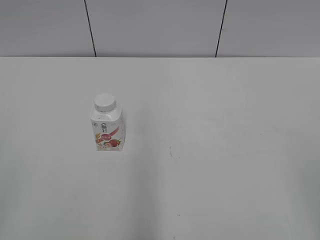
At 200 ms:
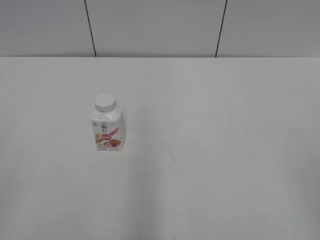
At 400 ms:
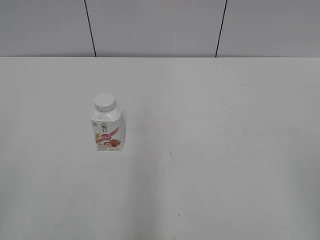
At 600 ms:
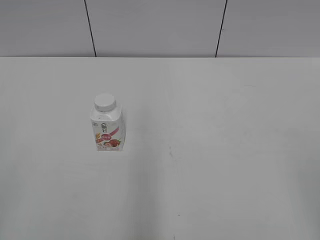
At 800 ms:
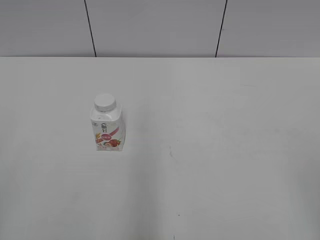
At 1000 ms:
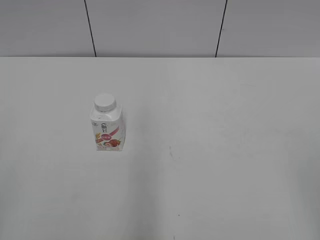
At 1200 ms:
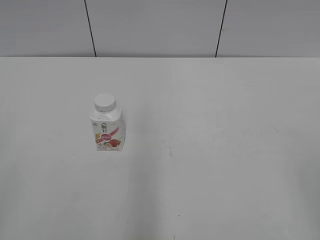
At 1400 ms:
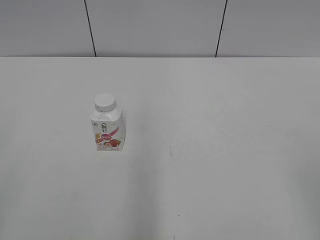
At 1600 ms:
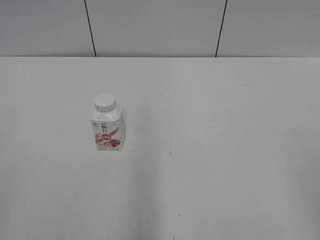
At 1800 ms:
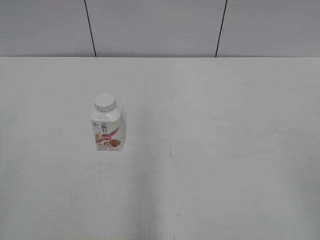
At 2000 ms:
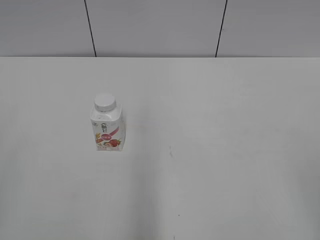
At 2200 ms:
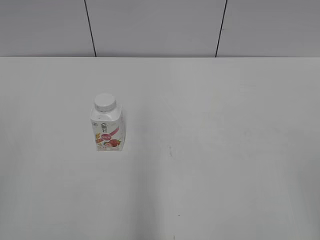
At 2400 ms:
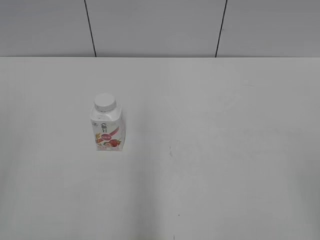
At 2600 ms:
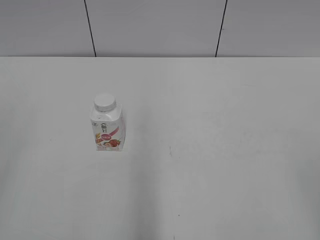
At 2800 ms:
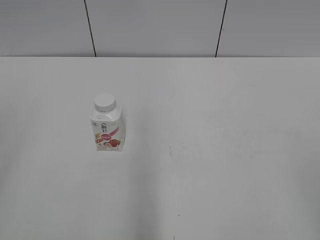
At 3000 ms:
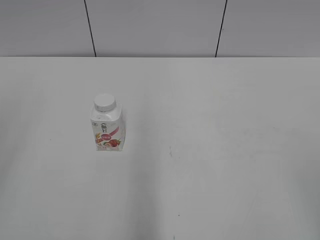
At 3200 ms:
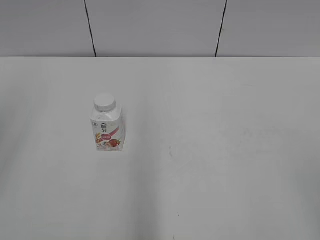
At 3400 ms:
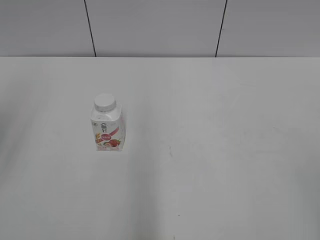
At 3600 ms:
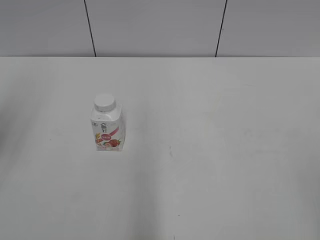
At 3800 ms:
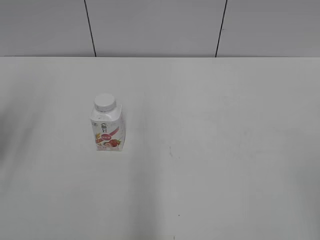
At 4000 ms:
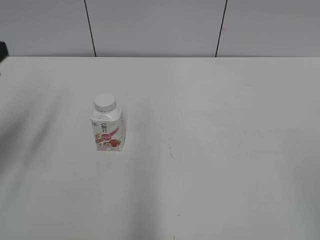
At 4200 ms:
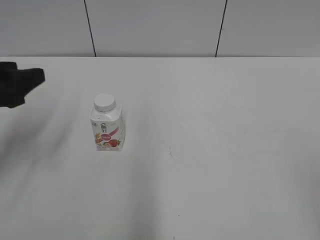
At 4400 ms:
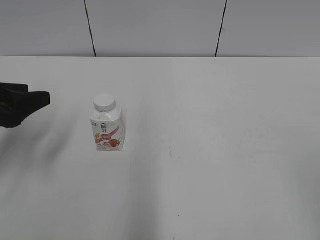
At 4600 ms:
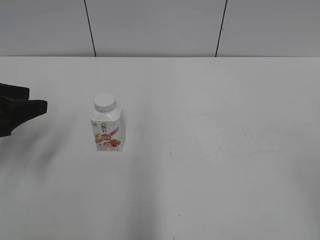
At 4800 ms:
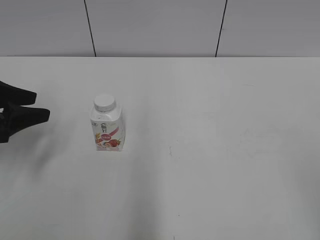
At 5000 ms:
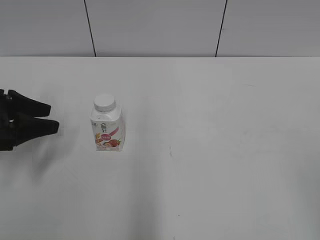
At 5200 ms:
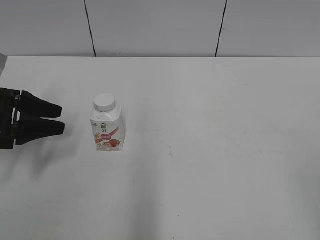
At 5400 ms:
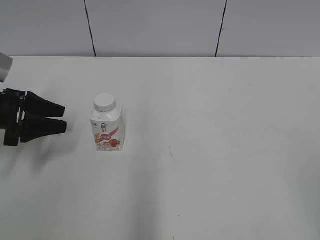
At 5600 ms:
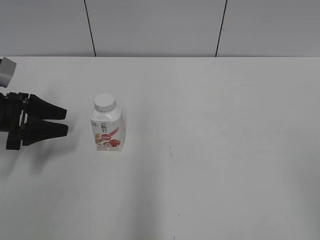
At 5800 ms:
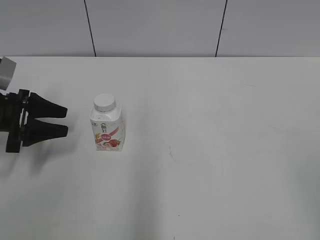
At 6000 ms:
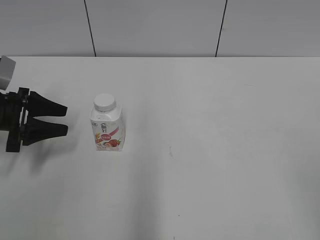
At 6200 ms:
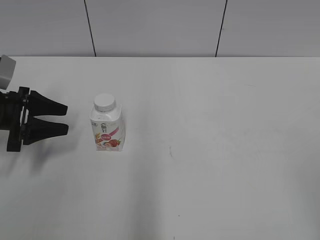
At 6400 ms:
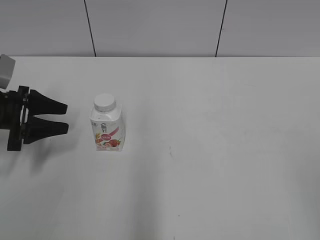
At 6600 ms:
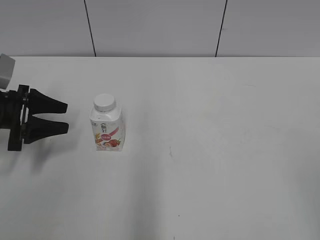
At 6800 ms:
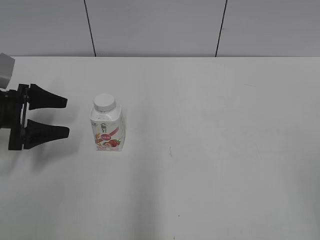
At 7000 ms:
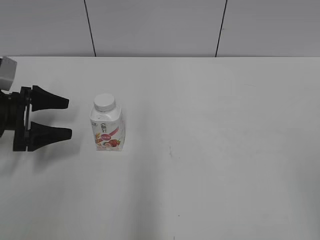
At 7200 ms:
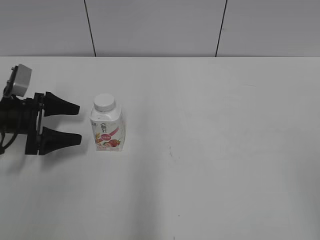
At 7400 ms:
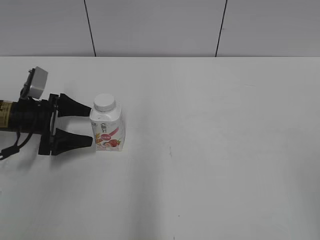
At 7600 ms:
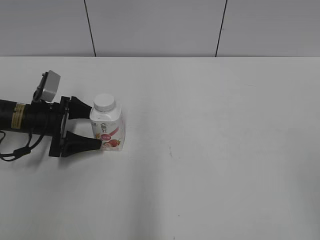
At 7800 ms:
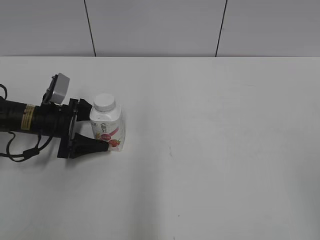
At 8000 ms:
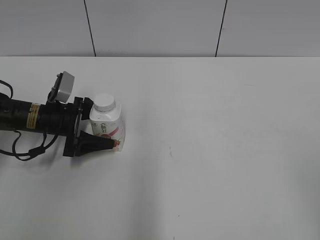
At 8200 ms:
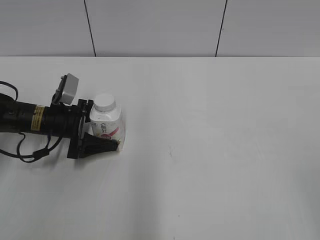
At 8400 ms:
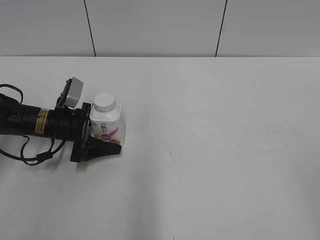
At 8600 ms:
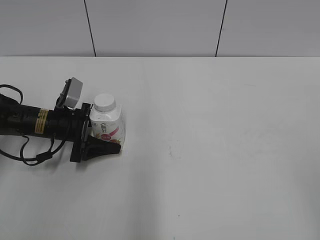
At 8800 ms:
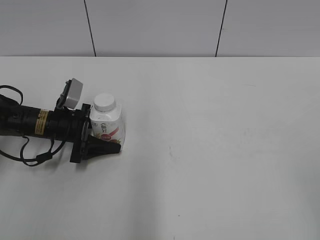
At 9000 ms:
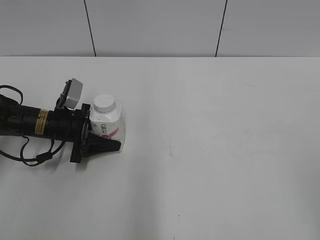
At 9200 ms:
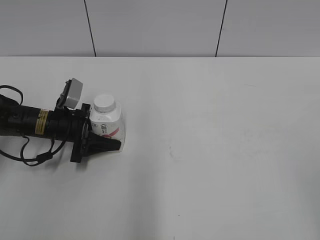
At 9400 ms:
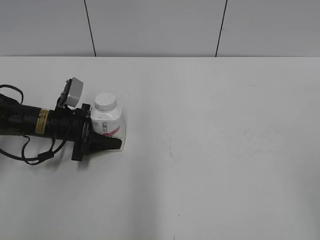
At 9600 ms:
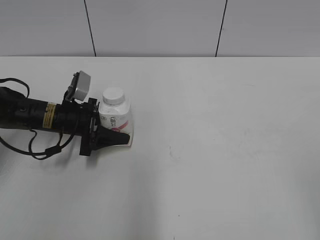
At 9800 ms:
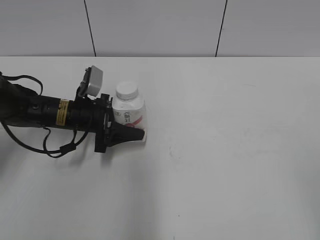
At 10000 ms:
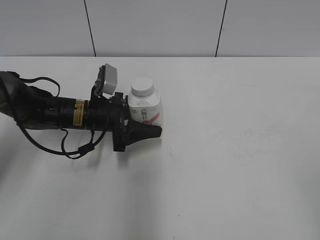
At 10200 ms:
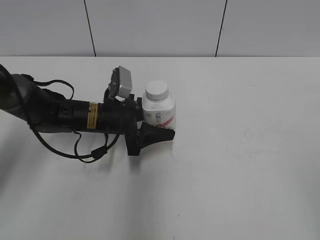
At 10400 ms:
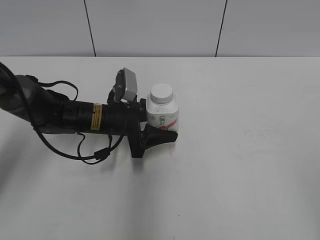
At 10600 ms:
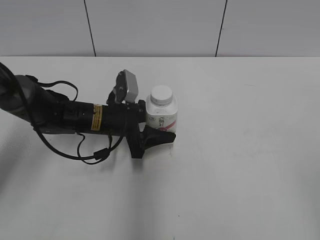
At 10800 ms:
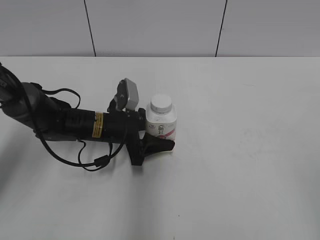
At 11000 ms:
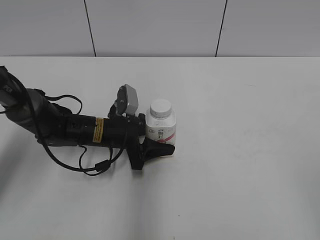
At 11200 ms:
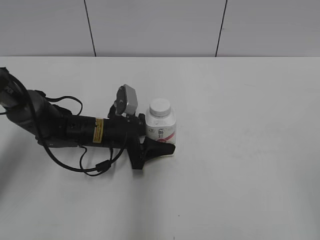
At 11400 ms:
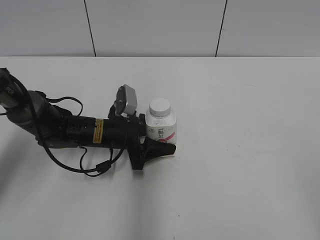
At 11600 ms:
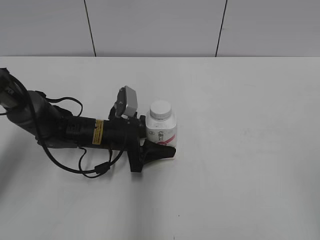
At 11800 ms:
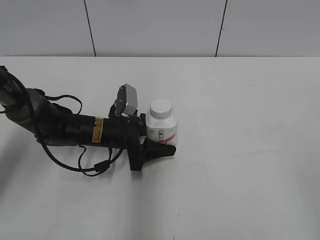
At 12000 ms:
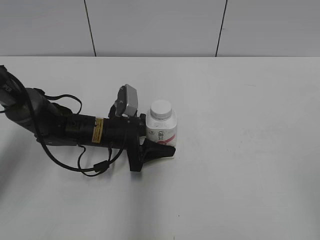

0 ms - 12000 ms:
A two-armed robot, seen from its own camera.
Step, 0 ms - 9000 ms: Grab the Yili Changqing with the left hand.
3000 ms - 4400 ms: The left gripper moves downward and forward, approximately 25 cm.
4400 ms - 6000 ms: The left gripper goes some 10 cm forward and downward.
6000 ms - 7600 ms: The left gripper is displaced downward by some 5 cm, and opens its fingers.
7600 ms - 9000 ms: The left gripper closes its fingers.
9000 ms - 10400 ms: The left gripper heads to the right, covering roughly 10 cm.
10400 ms - 12000 ms: The grippers move only a little.

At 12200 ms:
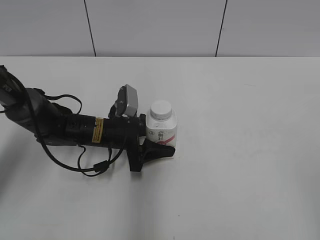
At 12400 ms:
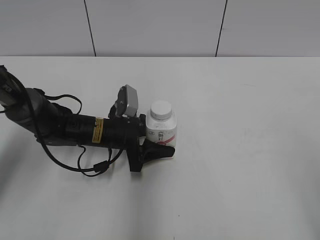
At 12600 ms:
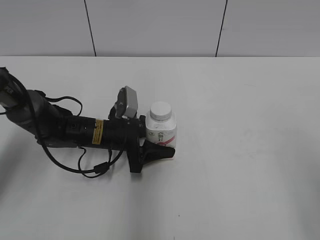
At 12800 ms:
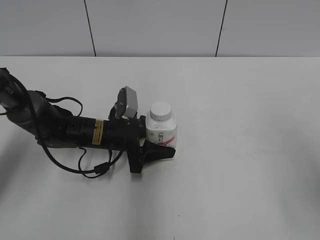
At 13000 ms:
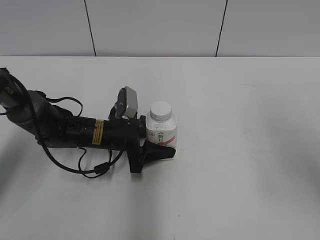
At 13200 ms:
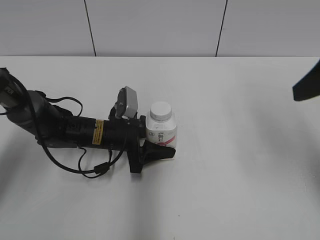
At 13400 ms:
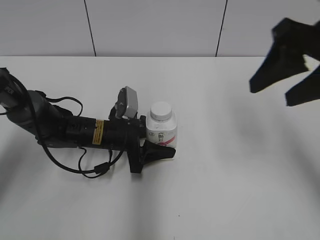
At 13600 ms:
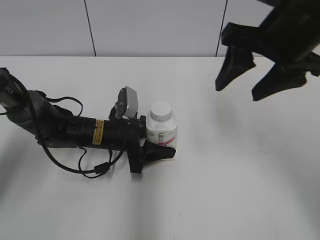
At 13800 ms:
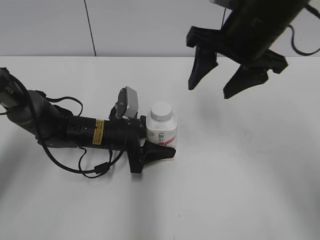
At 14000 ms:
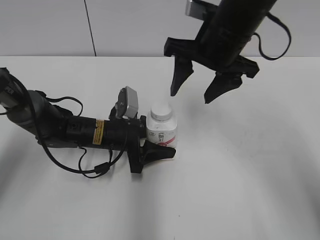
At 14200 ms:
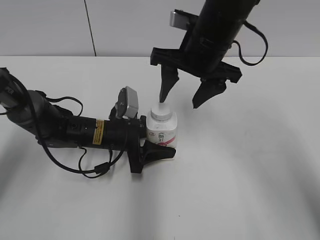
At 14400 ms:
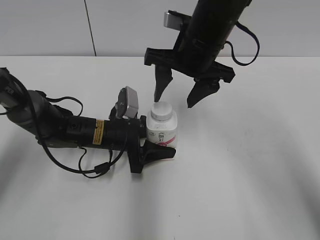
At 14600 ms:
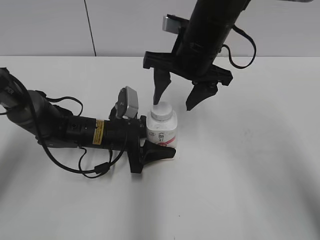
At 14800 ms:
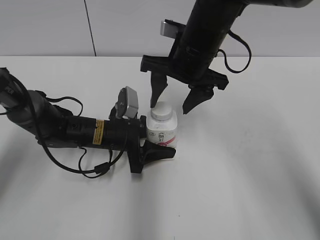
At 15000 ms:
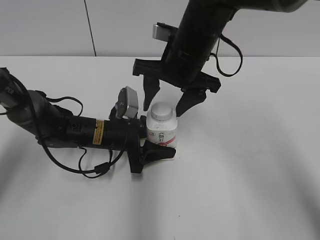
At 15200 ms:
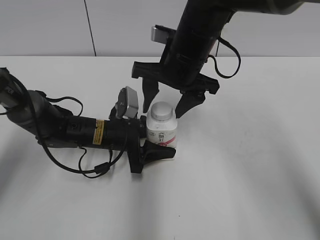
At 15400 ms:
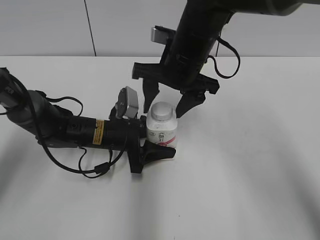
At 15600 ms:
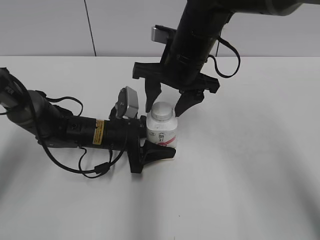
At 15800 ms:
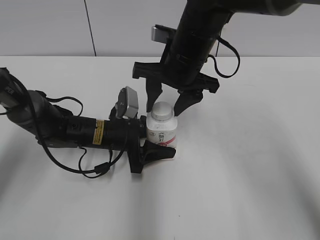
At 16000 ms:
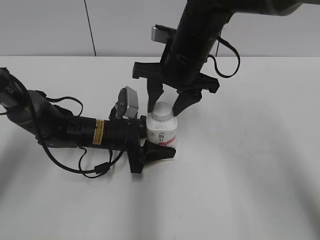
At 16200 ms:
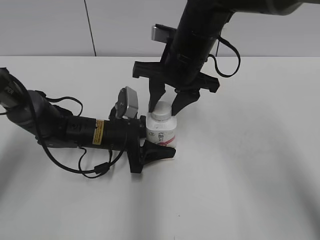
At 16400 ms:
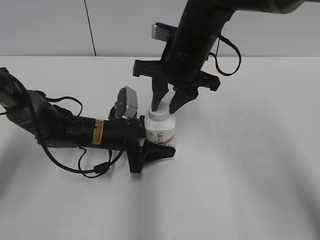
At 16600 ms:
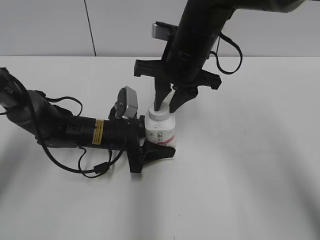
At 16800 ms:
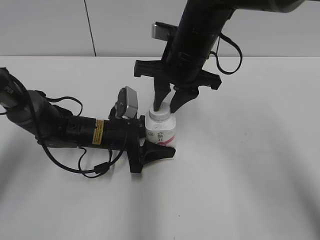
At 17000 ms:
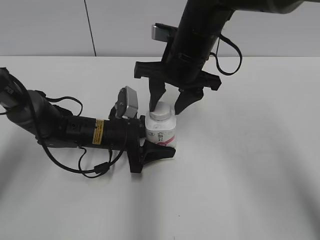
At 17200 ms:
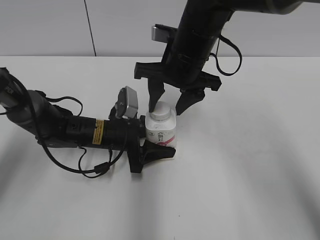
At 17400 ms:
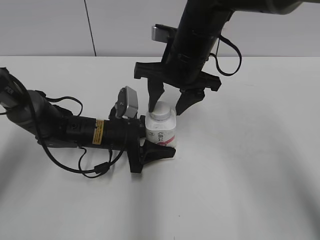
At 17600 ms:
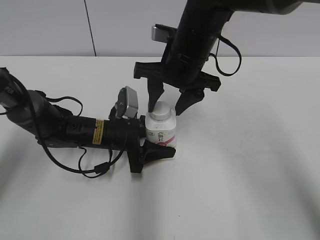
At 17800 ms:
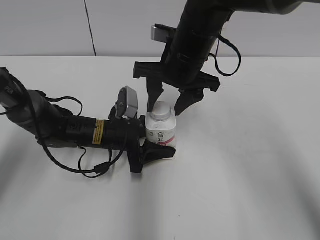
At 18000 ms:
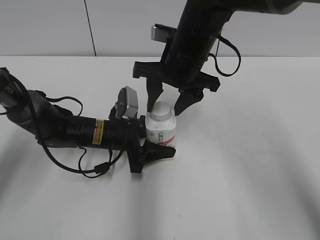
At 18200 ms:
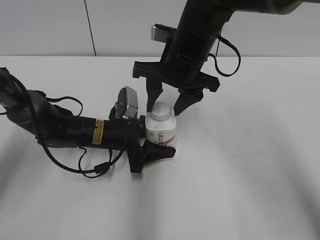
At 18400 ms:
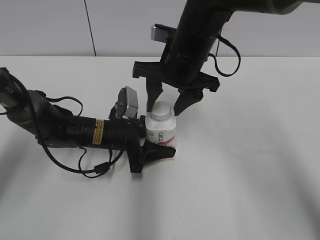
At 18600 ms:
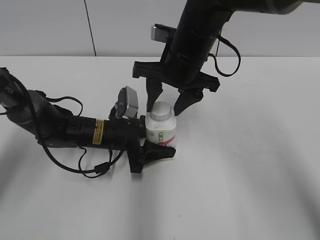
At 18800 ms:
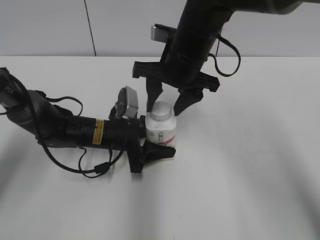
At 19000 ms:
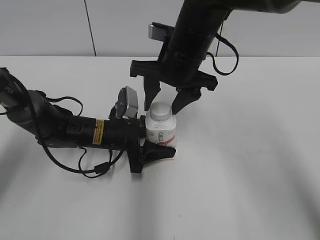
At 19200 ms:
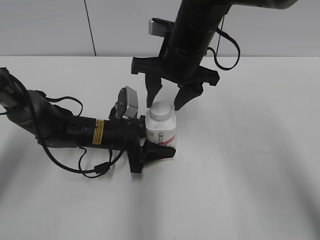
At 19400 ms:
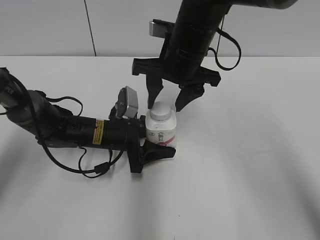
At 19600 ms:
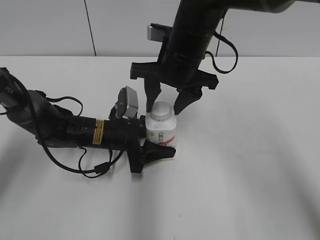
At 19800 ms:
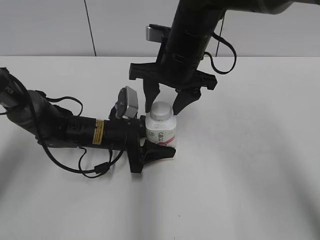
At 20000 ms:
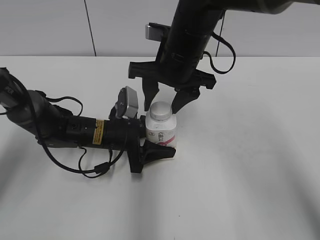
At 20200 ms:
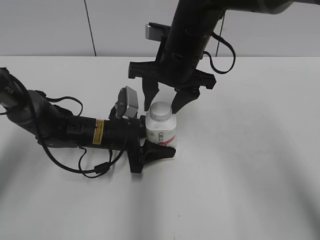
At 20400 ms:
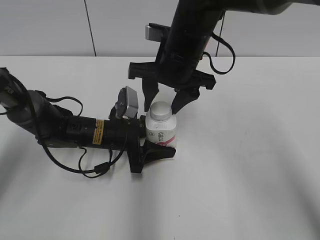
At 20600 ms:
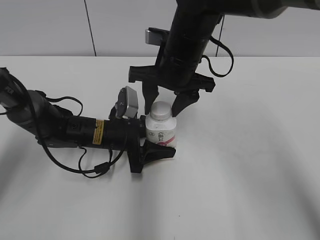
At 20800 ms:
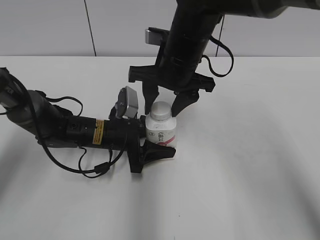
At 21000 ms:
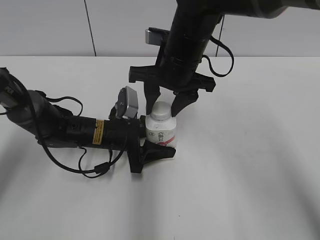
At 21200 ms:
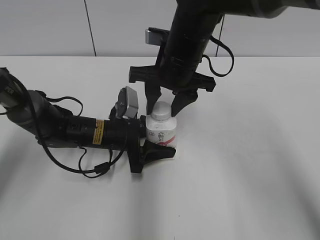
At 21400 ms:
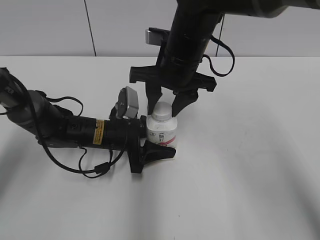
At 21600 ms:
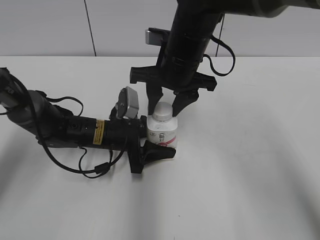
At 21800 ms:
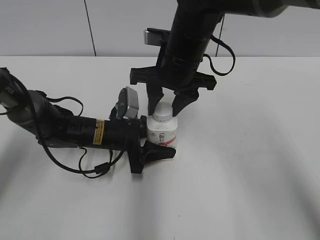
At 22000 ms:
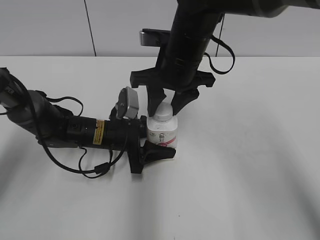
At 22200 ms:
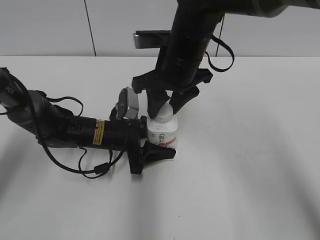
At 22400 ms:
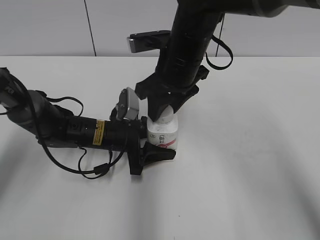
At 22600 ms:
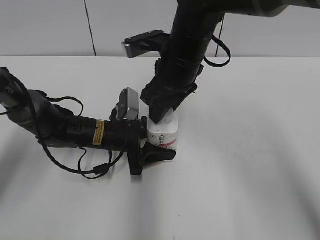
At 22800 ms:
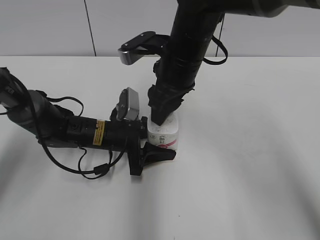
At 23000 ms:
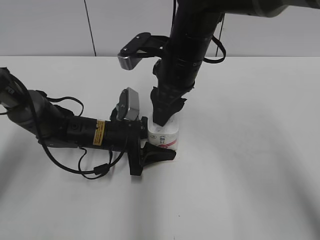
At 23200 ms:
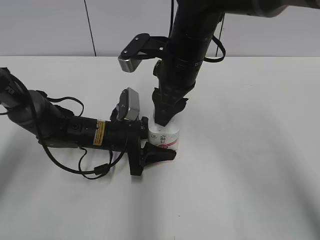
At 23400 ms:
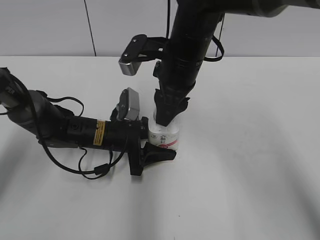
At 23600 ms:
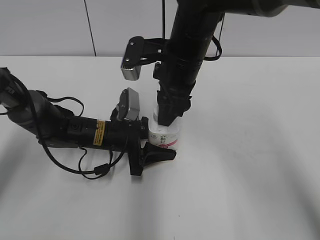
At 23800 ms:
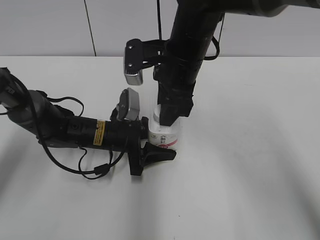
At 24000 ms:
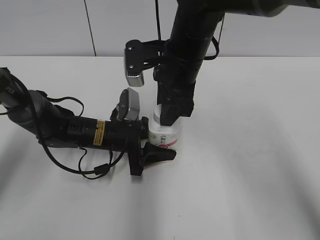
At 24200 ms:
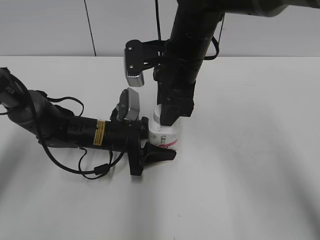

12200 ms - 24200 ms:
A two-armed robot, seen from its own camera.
12200 ms - 13800 ms: The right gripper heads forward and to the left, covering some 35 cm.
13800 ms - 15200 ms: The right gripper heads to the left and downward, covering roughly 10 cm.
15200 ms - 16600 ms: The right gripper closes.
16600 ms - 18200 ms: The right gripper opens up.
18200 ms - 19800 ms: Neither gripper changes place.
19800 ms - 21200 ms: The right gripper closes.
